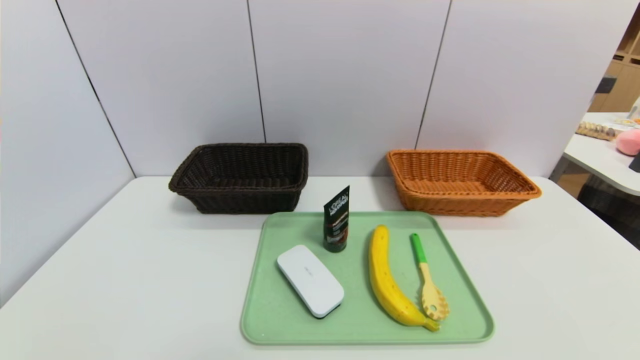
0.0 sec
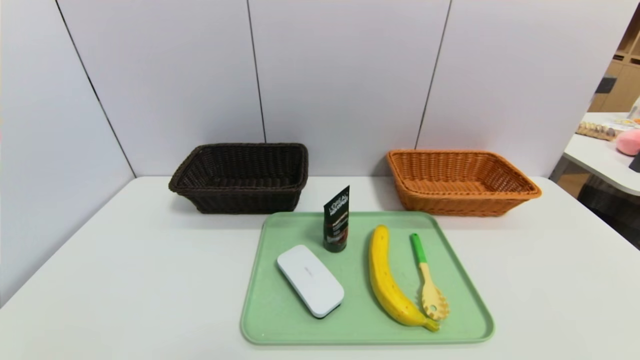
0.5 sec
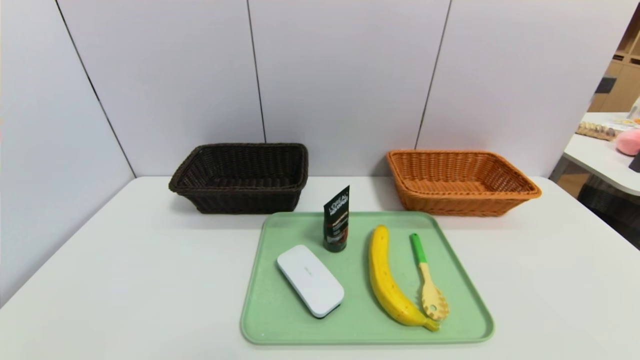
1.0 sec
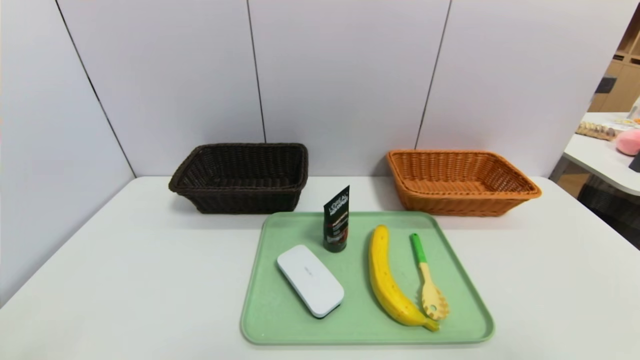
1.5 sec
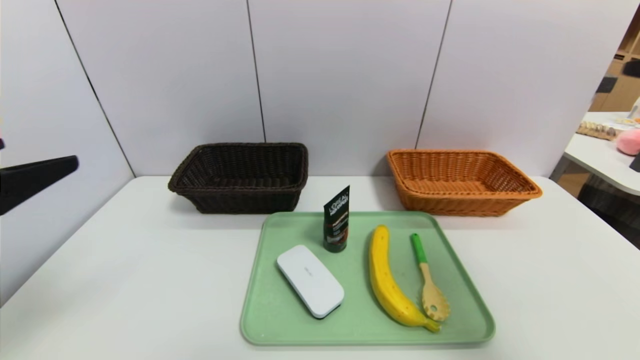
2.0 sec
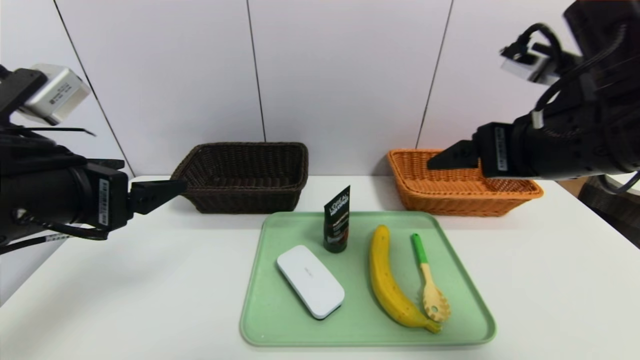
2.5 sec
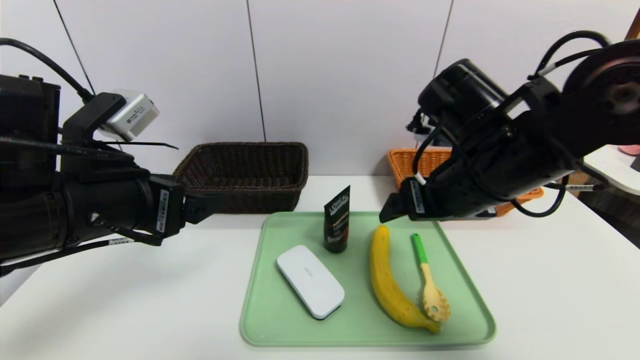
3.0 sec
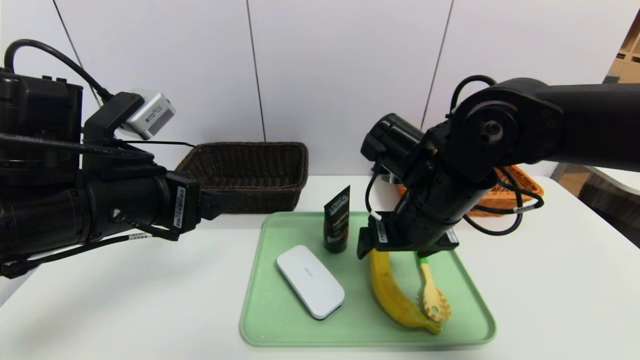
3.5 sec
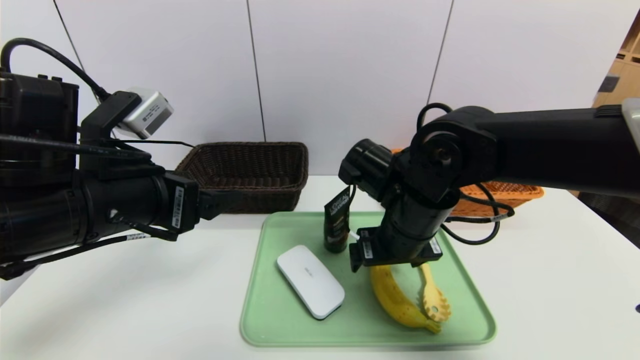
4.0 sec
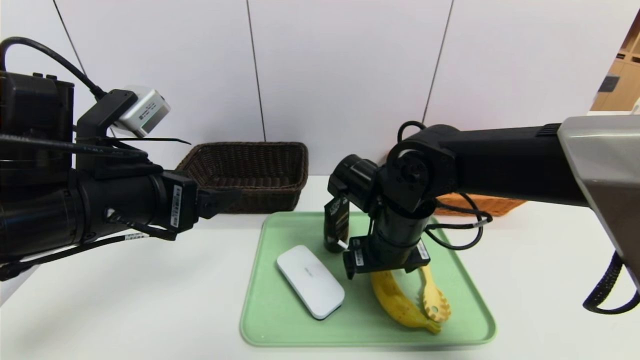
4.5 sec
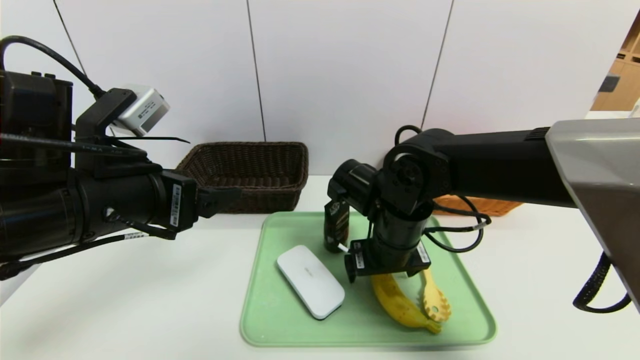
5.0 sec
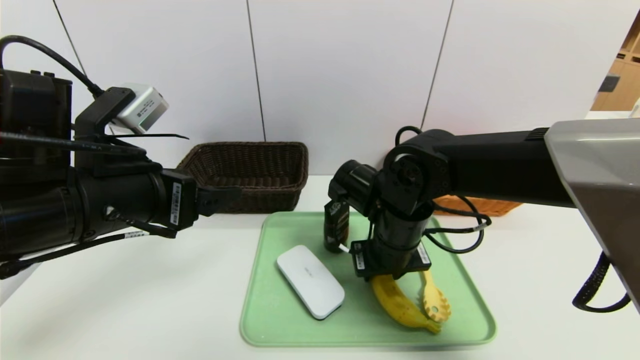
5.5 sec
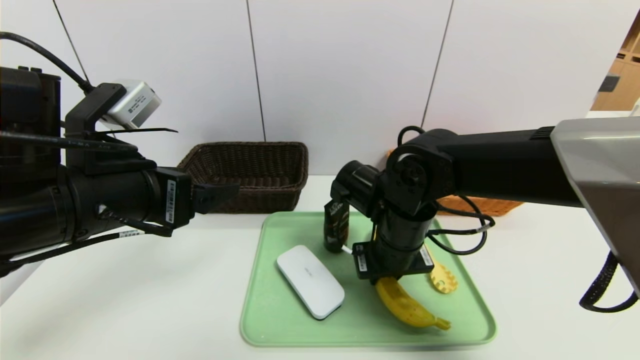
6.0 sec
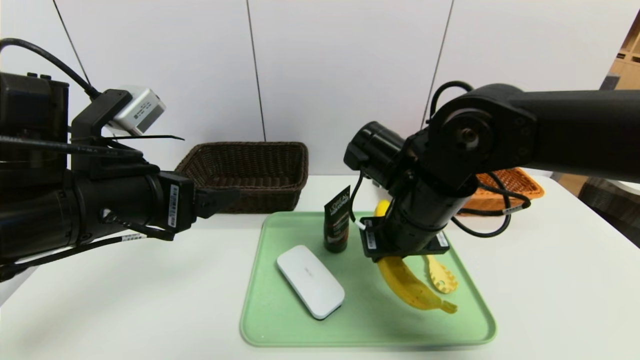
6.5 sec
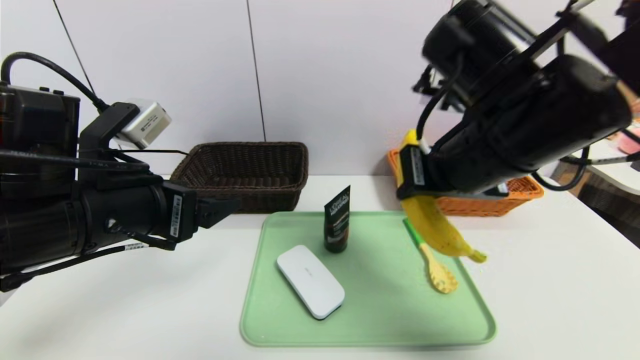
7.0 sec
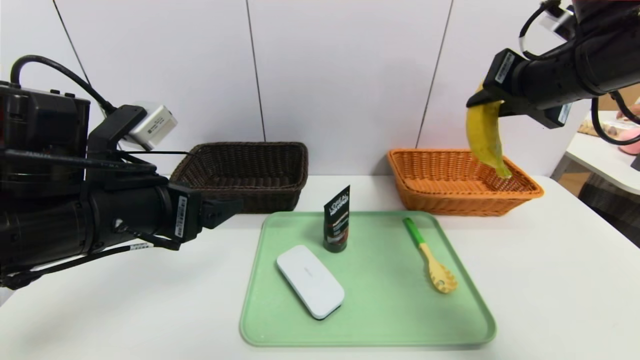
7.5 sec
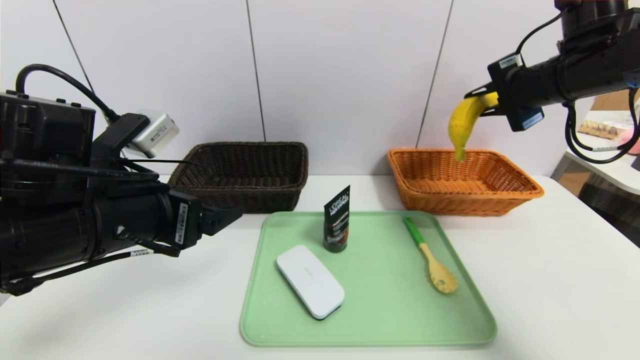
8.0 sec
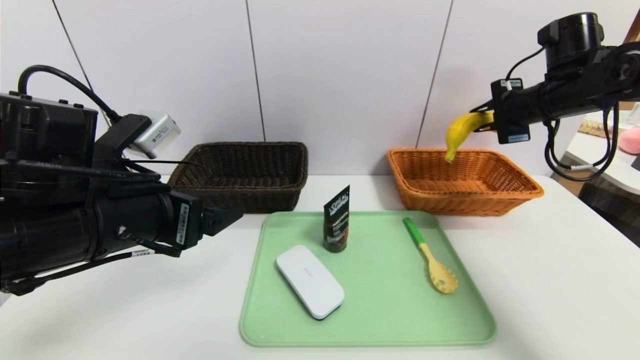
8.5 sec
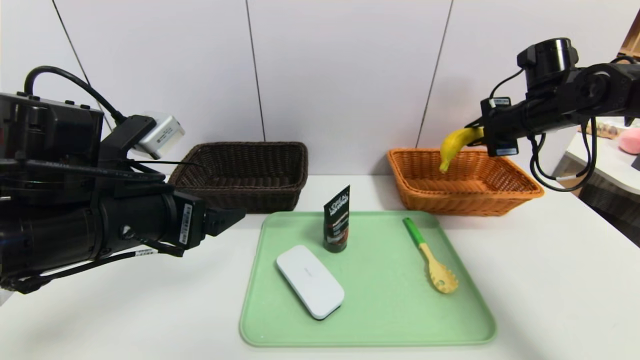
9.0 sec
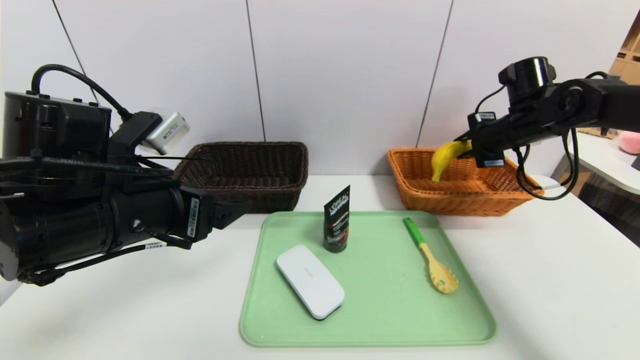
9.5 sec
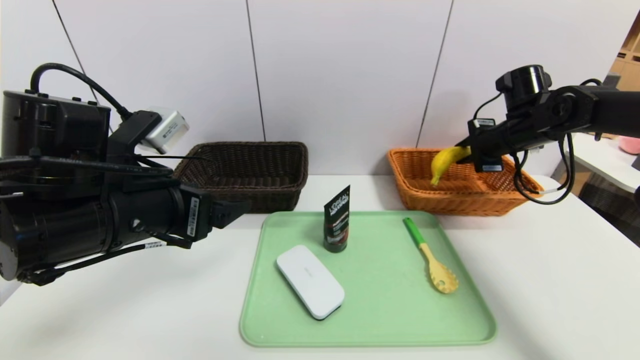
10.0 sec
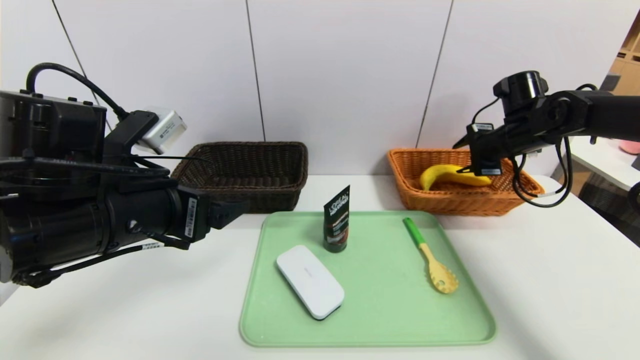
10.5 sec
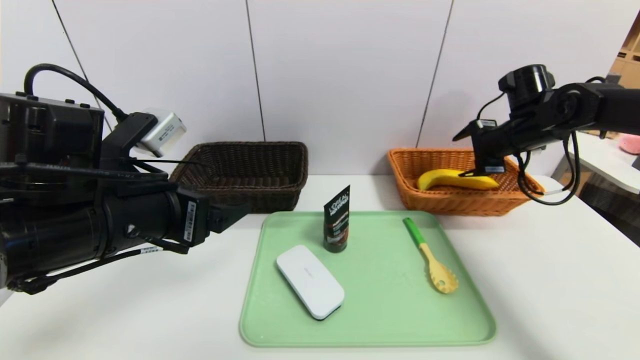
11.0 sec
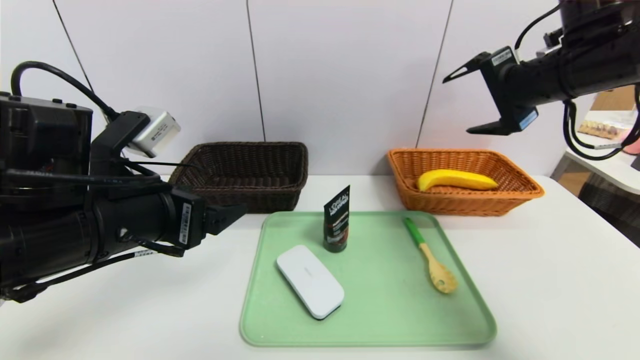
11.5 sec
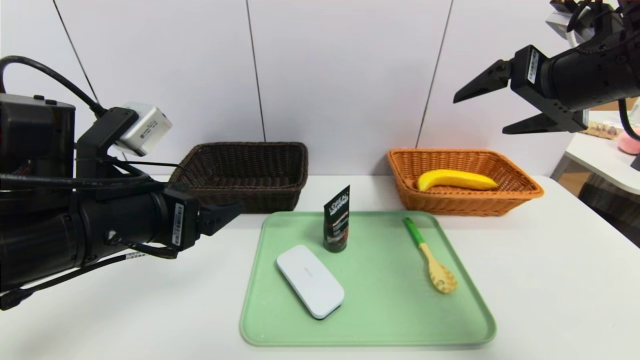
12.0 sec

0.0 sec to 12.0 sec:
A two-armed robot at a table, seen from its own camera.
Task of the whole recording: place the food in the right basket with the right gripper, and place the non food items in the left basket with the left gripper.
Step, 0.0 sec to 11.5 sec: Grasp the banana and put it in the right basket.
0.0 sec to 2.0 sec: The grippers both shift upward and forward by approximately 30 cm.
2.0 sec to 4.0 sec: The right gripper is displaced to the left, downward and forward by approximately 30 cm. The left gripper moves forward and to the right, some 15 cm.
4.0 sec to 6.0 sec: The right gripper closes.
6.0 sec to 8.0 sec: The right gripper travels to the right and upward by approximately 25 cm.
8.0 sec to 10.0 sec: The right gripper is displaced downward and forward by some 15 cm.
10.0 sec to 12.0 sec: The right gripper heads backward and upward, covering roughly 20 cm, and opens up.

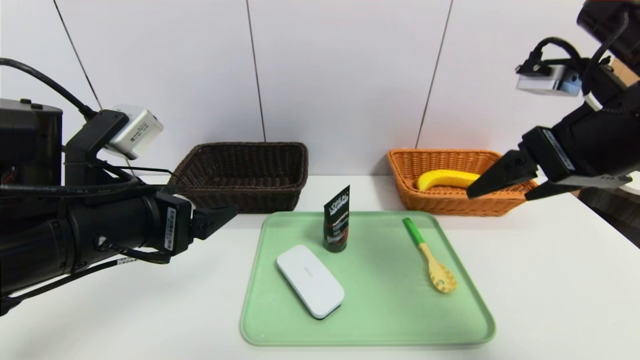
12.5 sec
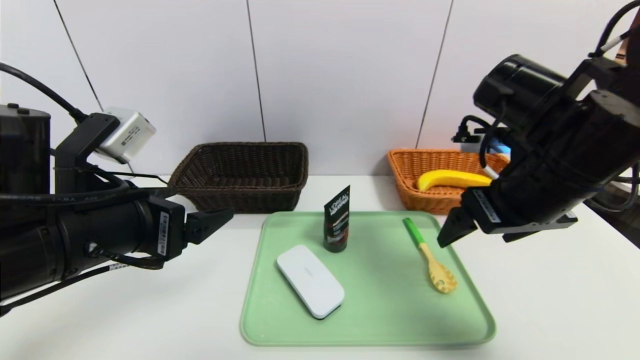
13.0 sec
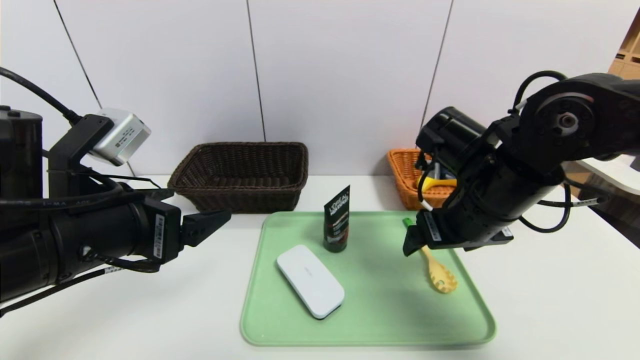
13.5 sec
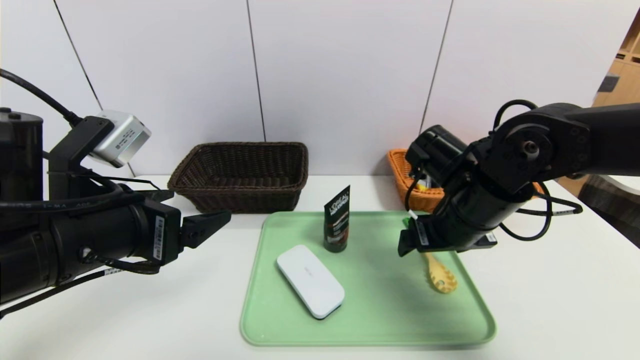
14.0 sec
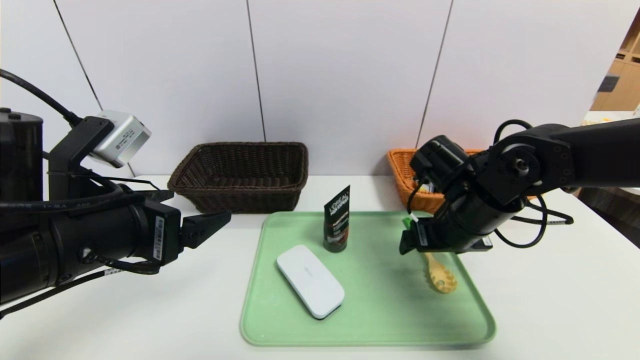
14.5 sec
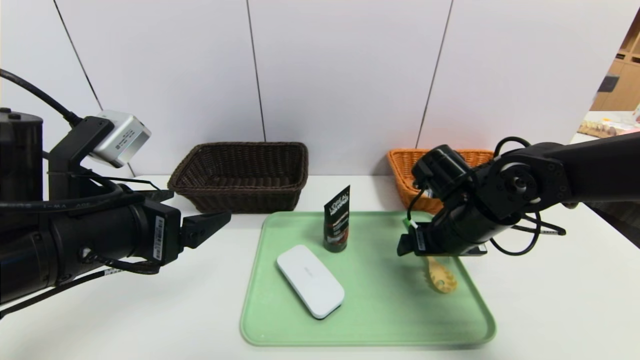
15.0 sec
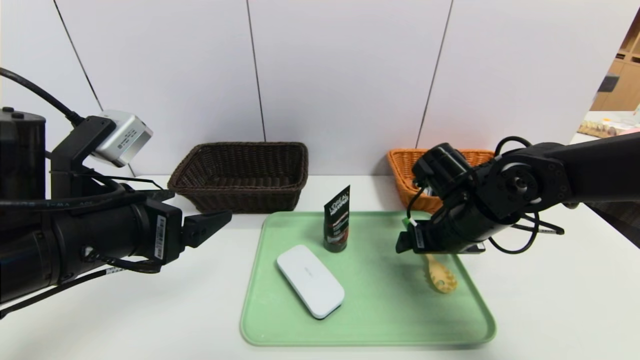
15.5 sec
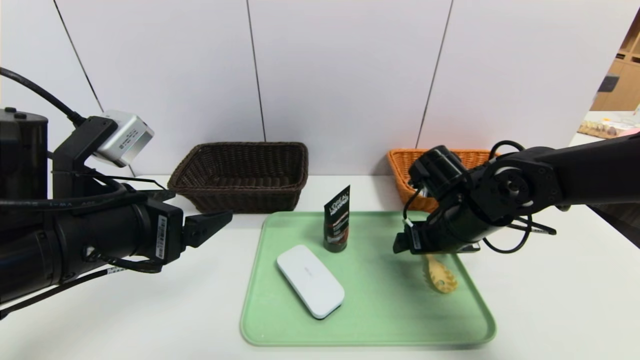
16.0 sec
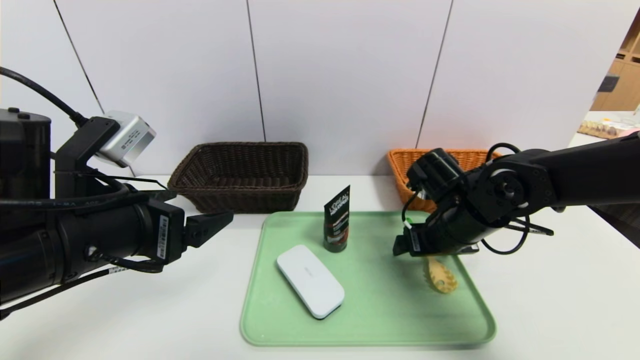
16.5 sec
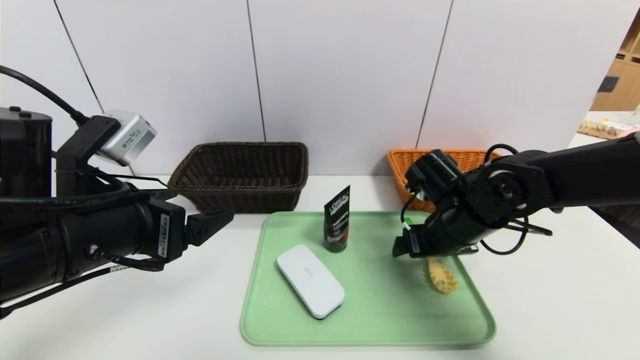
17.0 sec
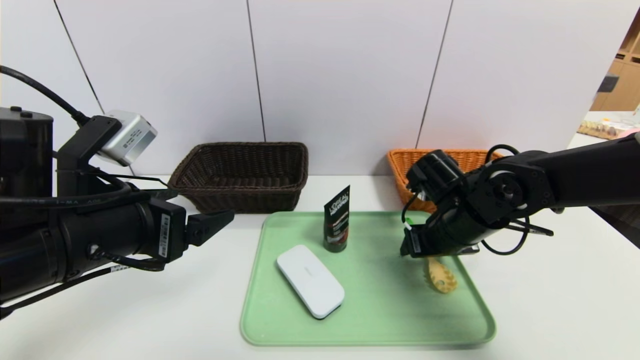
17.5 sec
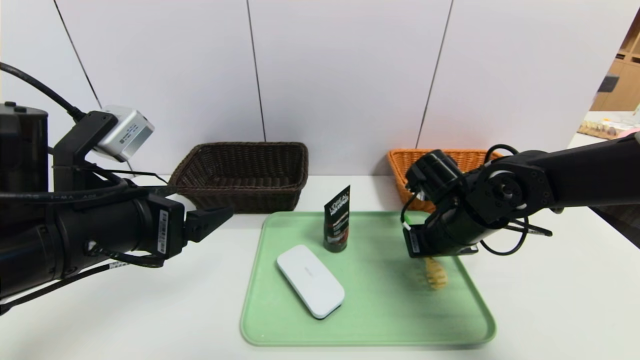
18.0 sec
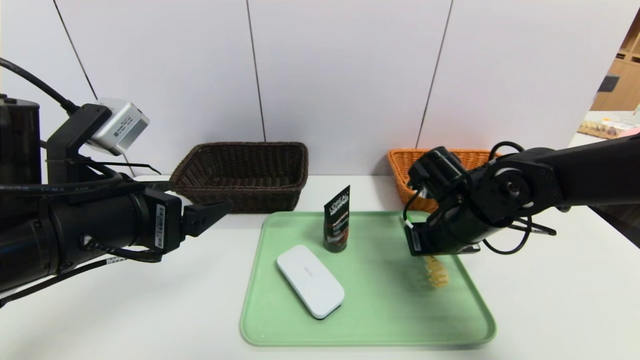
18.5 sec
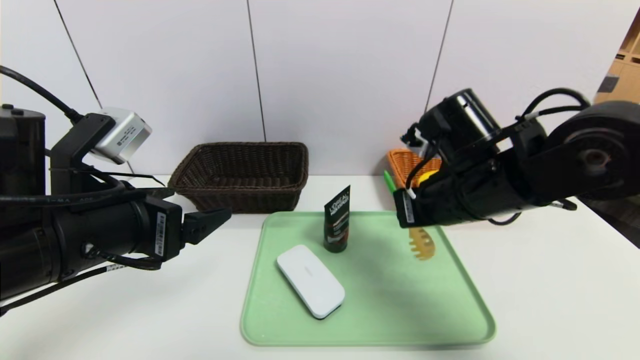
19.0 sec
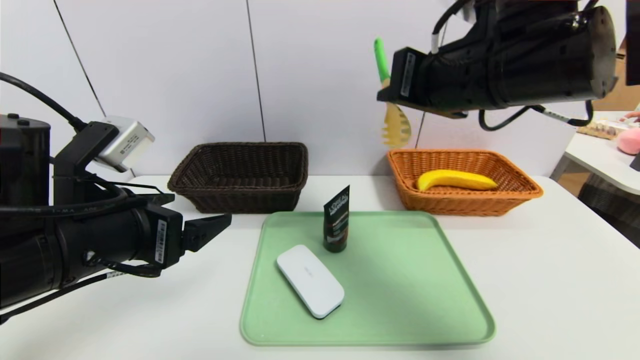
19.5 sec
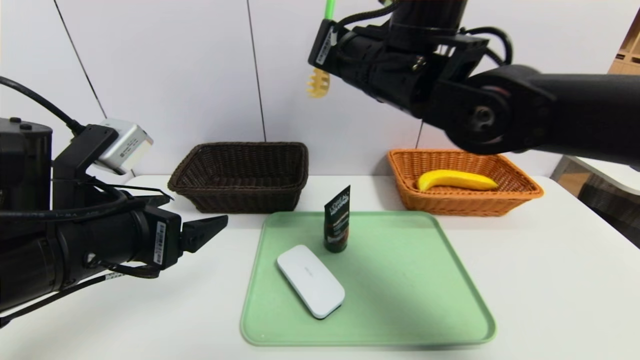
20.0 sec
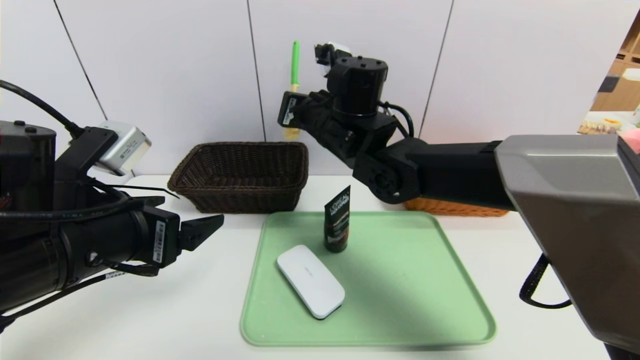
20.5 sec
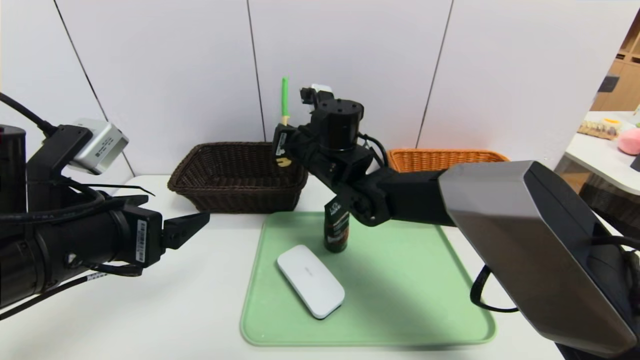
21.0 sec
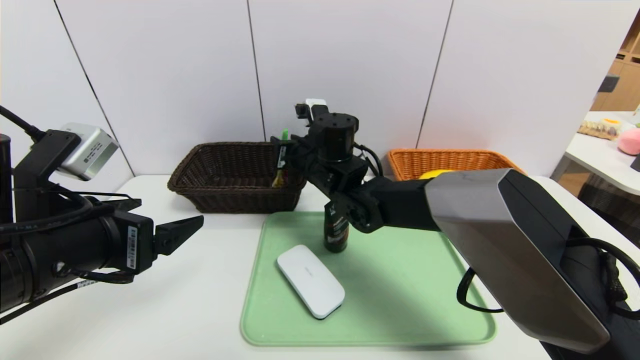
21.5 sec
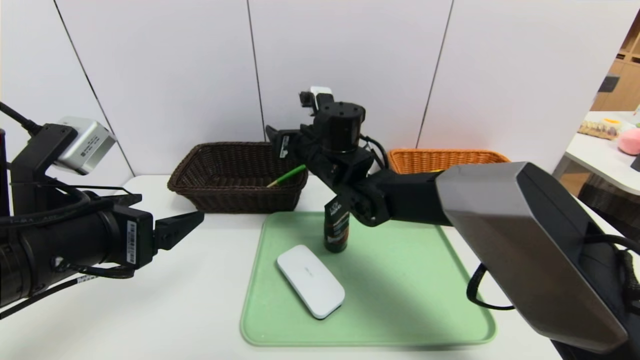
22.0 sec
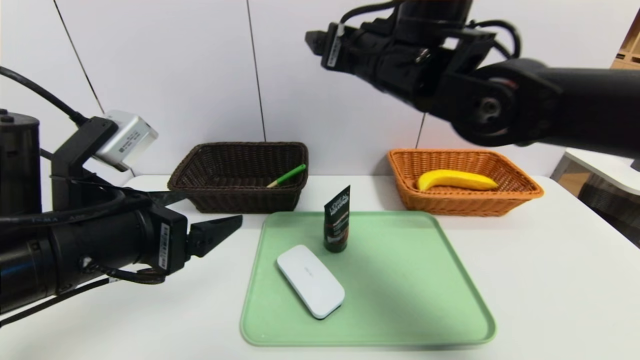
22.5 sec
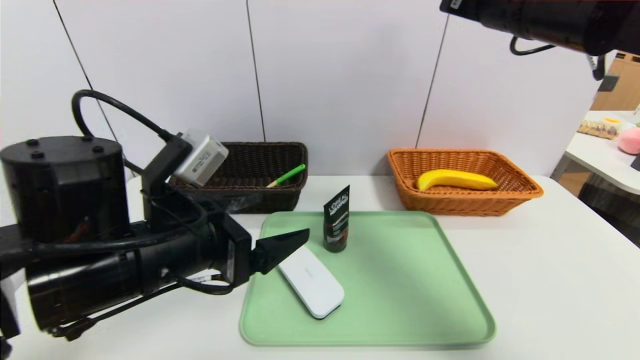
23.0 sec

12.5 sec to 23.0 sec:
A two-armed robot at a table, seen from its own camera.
Task of the whole recording: place the food in the right basket with the right gripper, and place the non food items in the left basket with the left gripper.
12.5 sec to 14.5 sec: The right gripper shifts approximately 20 cm downward and forward.
14.5 sec to 16.5 sec: The grippers make only small movements.
16.5 sec to 19.0 sec: The right gripper heads upward, covering roughly 10 cm, and closes its fingers.
19.0 sec to 21.0 sec: The right gripper is displaced to the left and forward by some 20 cm.
21.0 sec to 23.0 sec: The right gripper is displaced to the right, upward and backward by approximately 30 cm, and opens. Meanwhile the left gripper is displaced to the right by about 5 cm.
